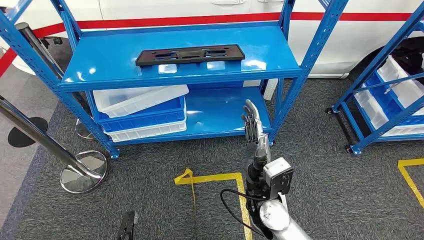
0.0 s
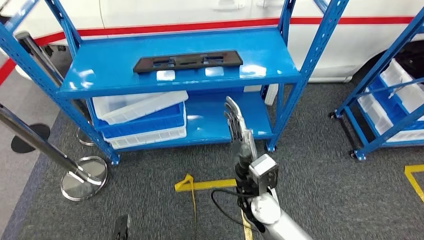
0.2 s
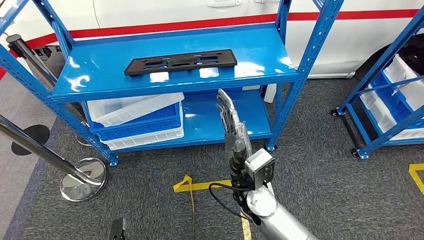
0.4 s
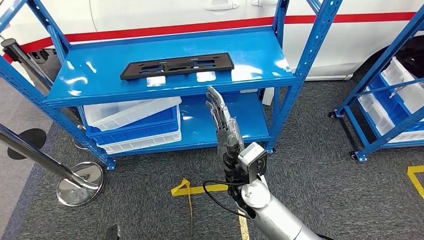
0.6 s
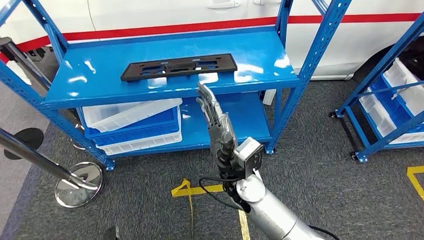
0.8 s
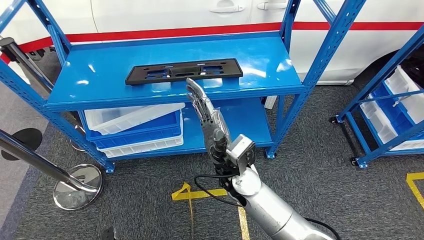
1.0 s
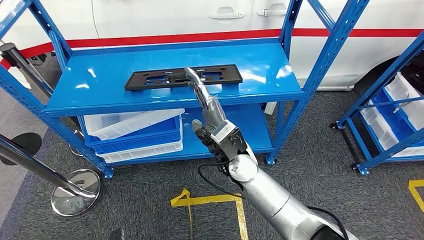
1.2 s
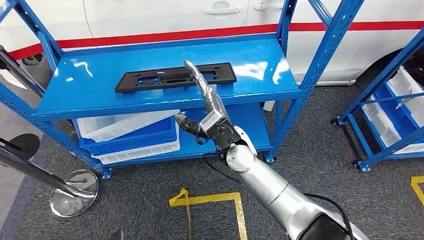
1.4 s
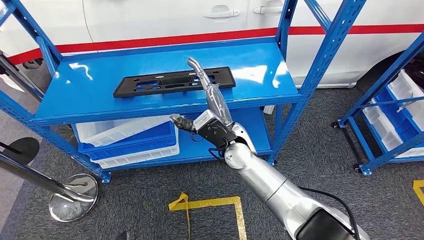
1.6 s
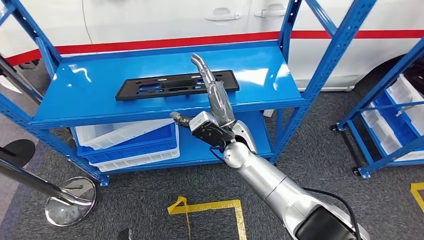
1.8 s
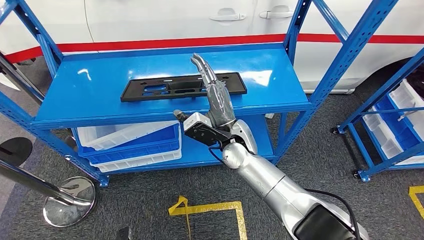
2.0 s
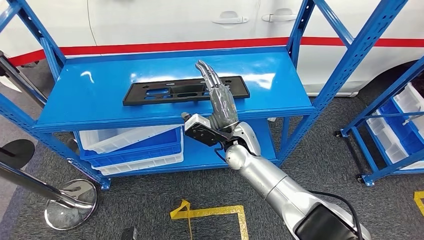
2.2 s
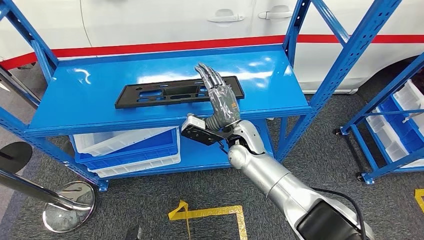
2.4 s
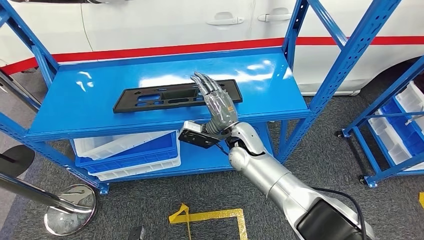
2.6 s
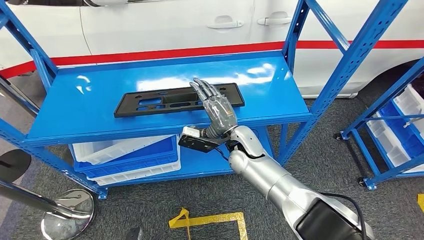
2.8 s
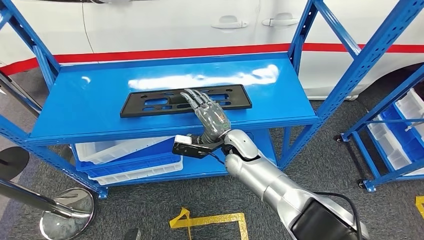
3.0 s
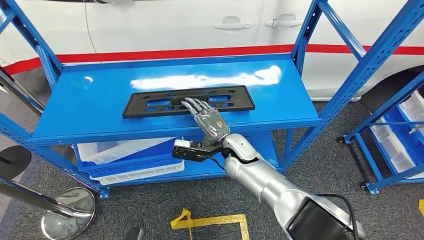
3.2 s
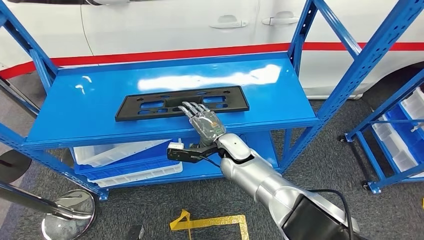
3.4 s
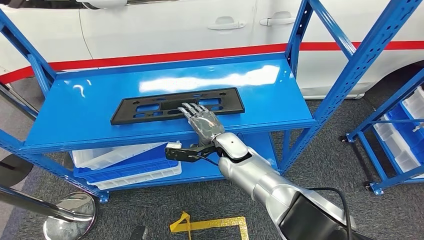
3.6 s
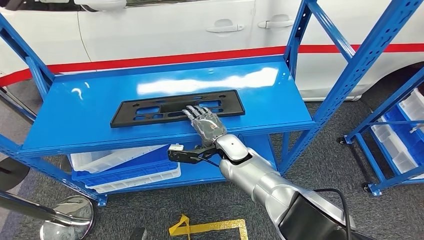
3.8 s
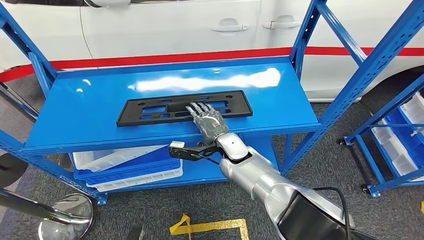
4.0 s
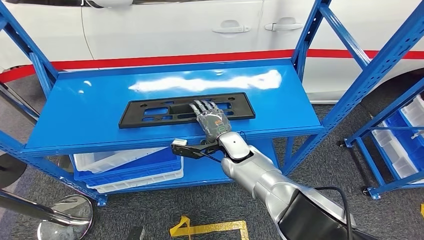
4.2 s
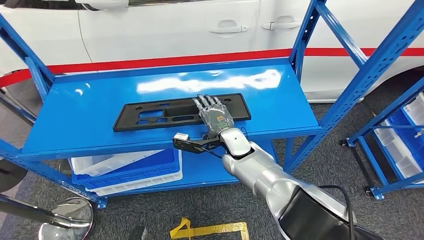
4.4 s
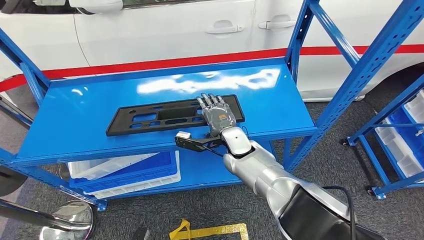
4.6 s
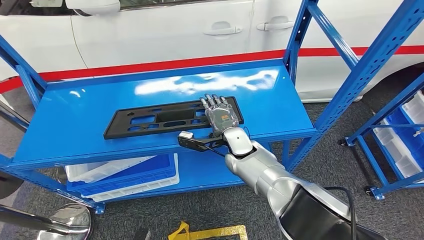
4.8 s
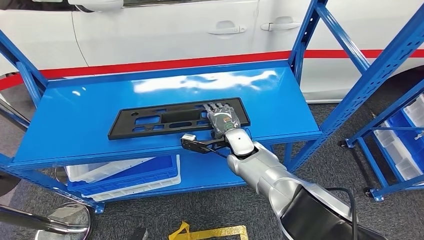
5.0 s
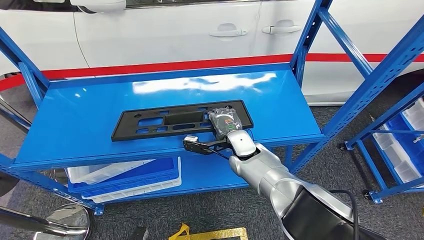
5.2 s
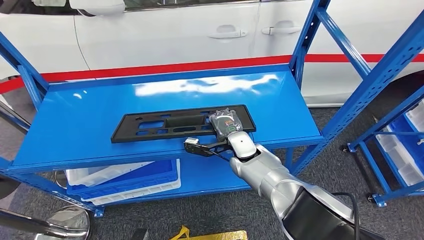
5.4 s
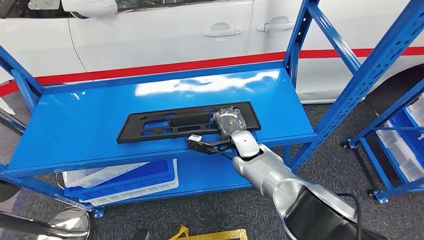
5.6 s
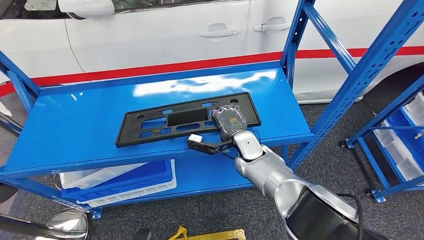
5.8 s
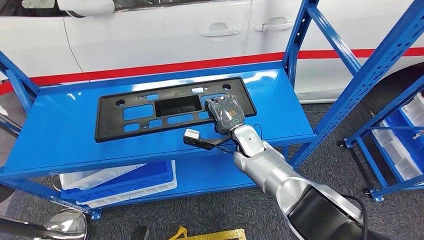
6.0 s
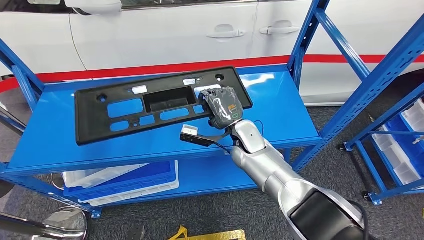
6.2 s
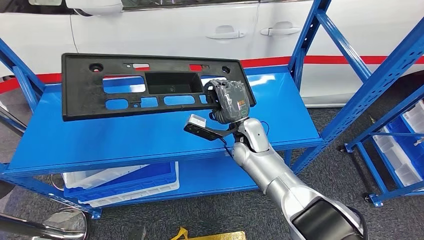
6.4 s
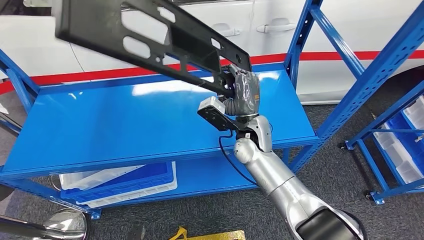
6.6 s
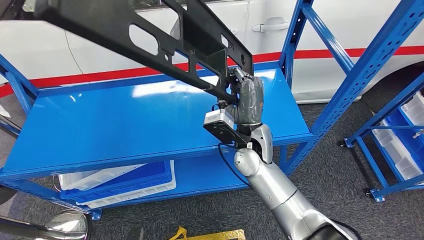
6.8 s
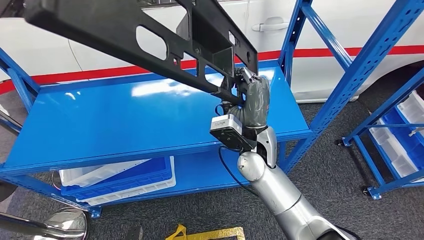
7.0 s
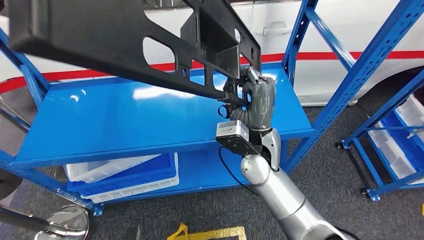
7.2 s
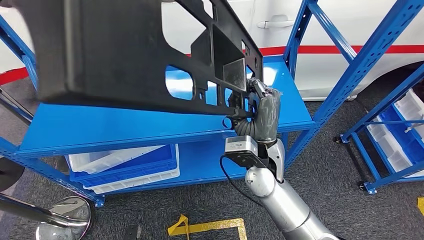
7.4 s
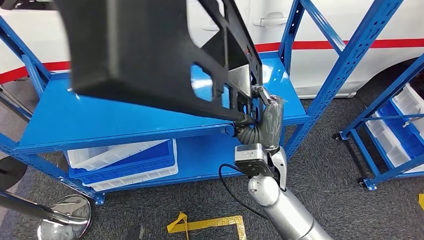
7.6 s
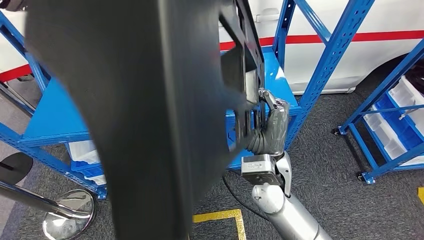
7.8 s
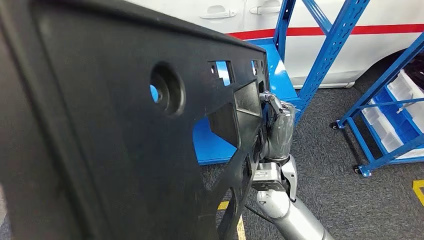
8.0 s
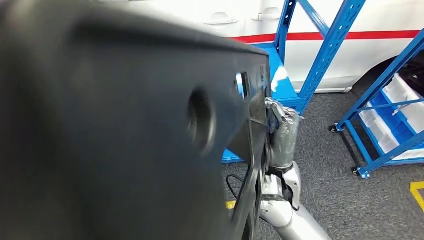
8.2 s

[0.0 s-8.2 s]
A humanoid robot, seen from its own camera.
Step, 0.0 to 7.6 s: Pick up the large parts from the shelf.
Step, 7.8 to 8.2 s: Move the large parts to the workbench.

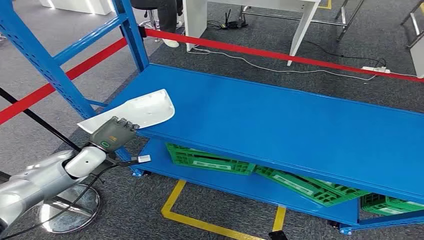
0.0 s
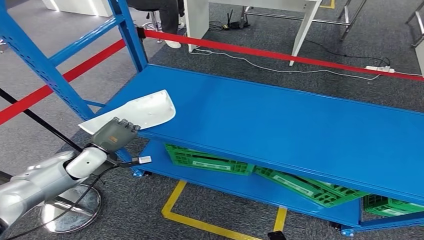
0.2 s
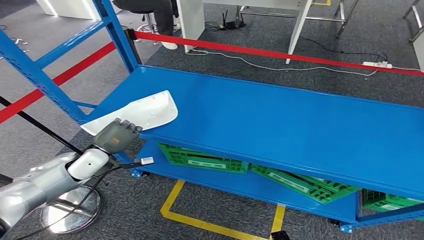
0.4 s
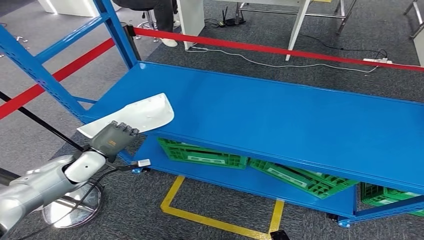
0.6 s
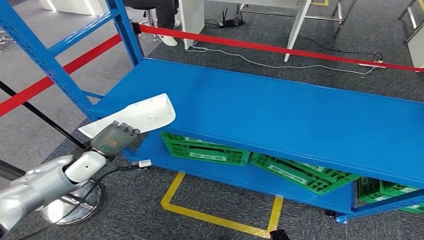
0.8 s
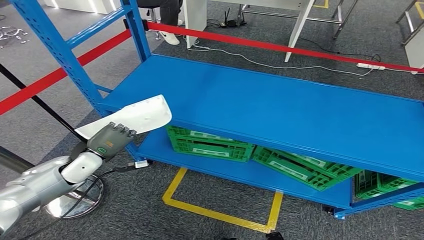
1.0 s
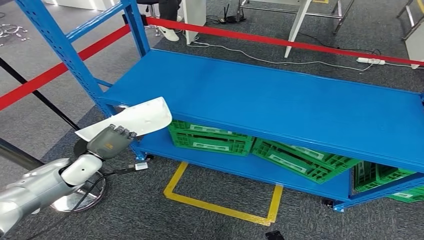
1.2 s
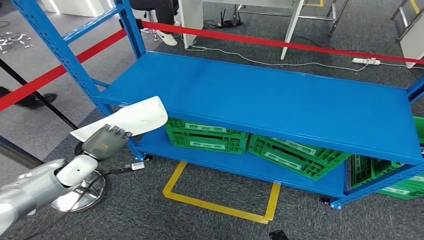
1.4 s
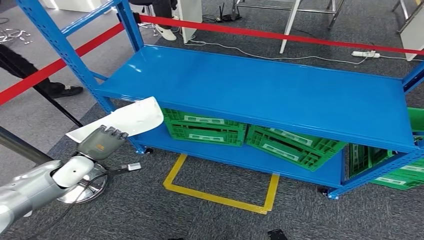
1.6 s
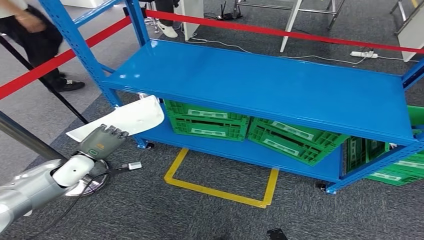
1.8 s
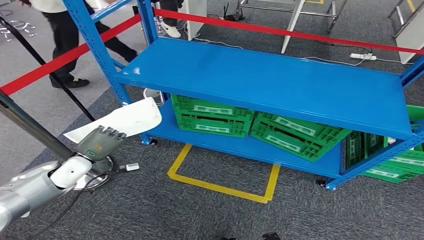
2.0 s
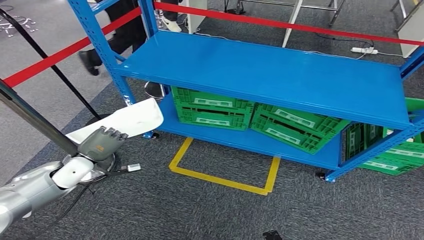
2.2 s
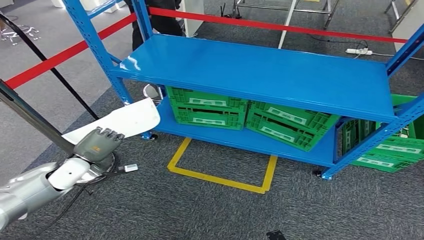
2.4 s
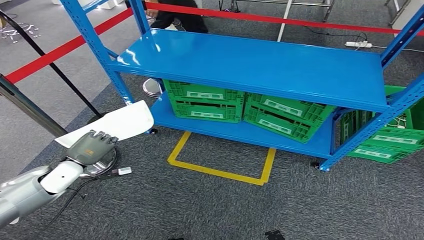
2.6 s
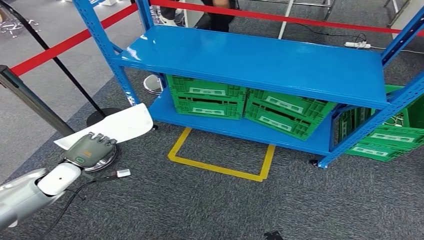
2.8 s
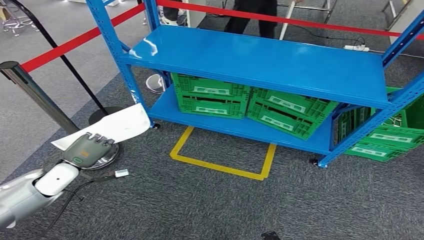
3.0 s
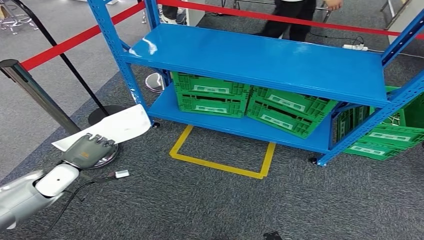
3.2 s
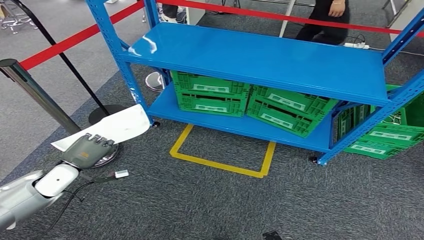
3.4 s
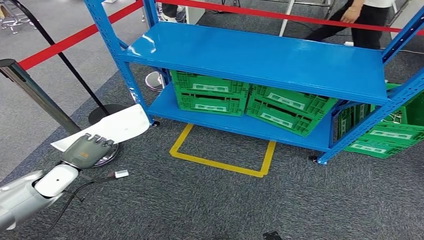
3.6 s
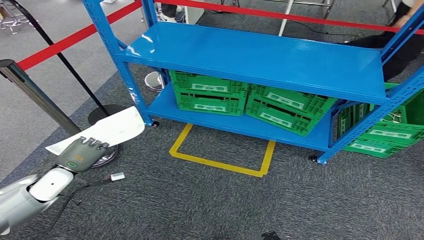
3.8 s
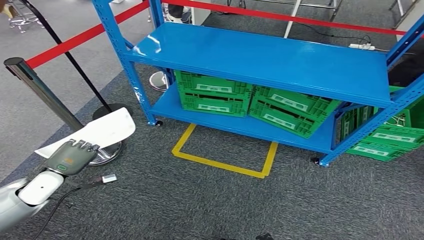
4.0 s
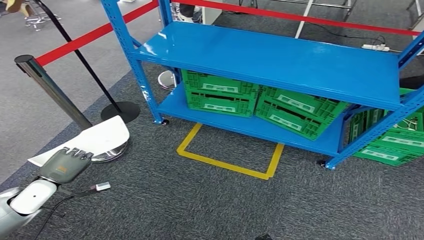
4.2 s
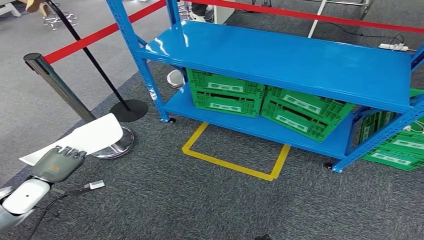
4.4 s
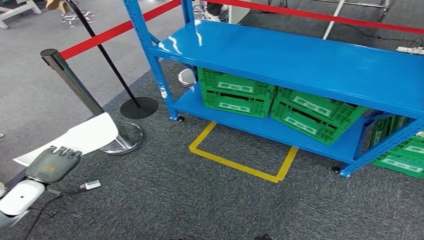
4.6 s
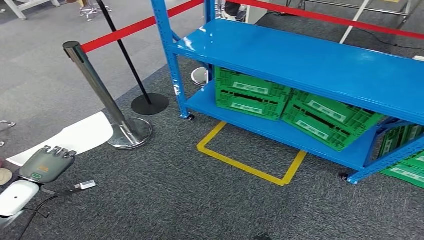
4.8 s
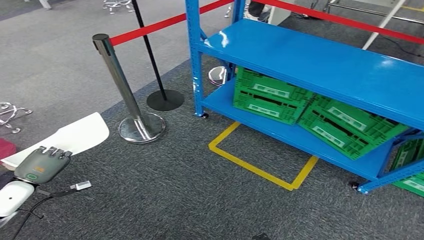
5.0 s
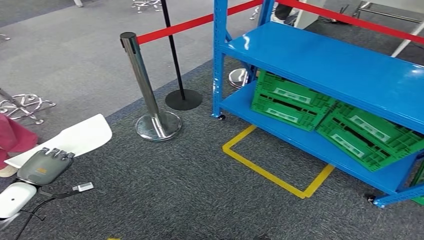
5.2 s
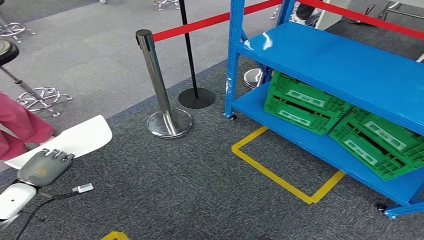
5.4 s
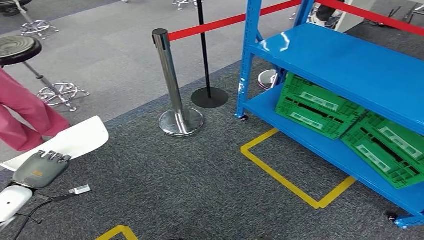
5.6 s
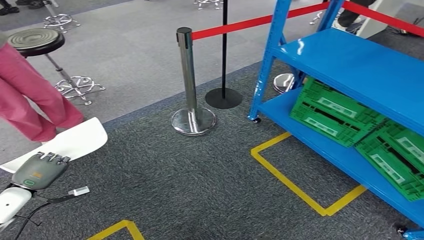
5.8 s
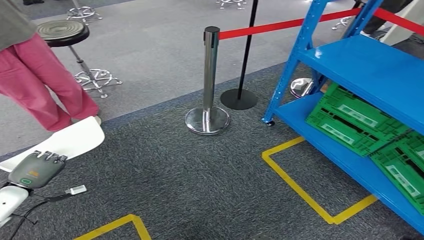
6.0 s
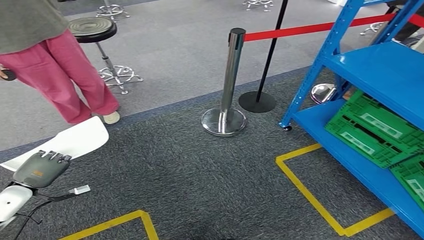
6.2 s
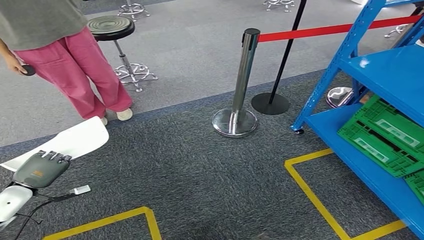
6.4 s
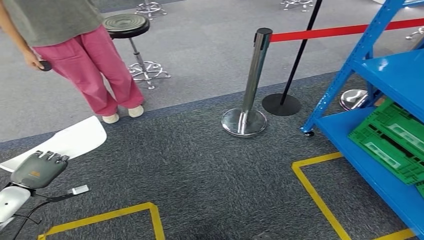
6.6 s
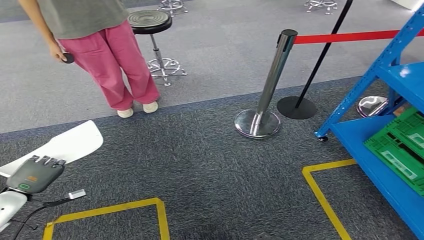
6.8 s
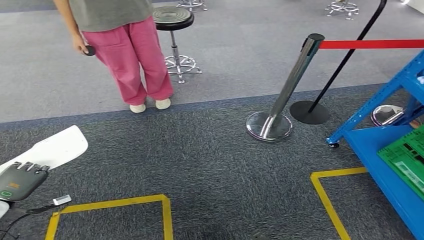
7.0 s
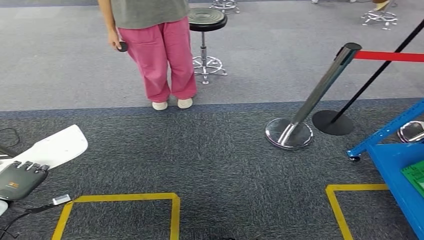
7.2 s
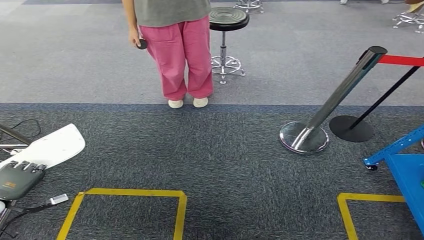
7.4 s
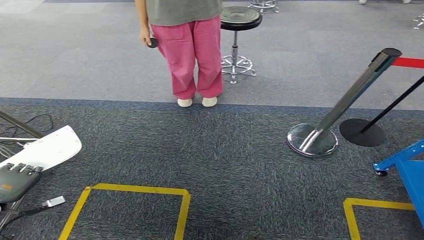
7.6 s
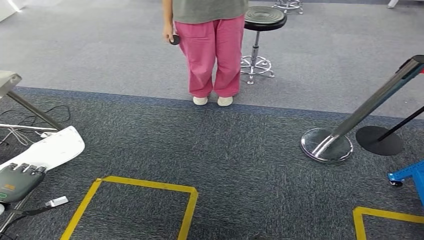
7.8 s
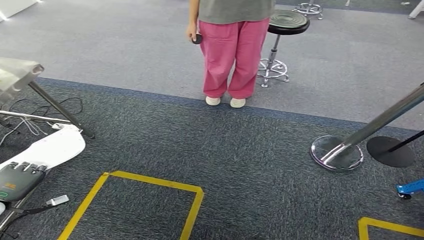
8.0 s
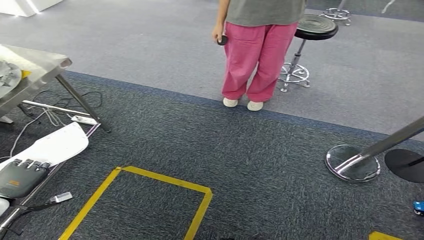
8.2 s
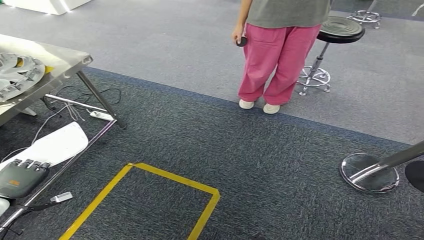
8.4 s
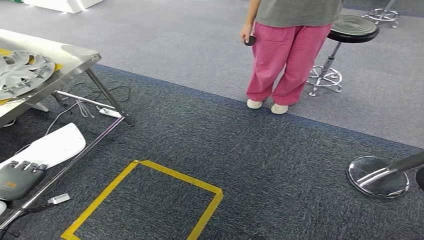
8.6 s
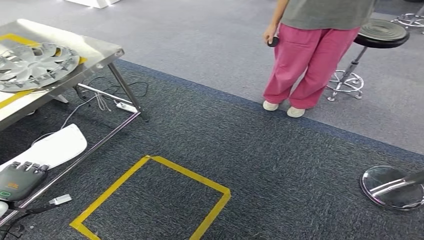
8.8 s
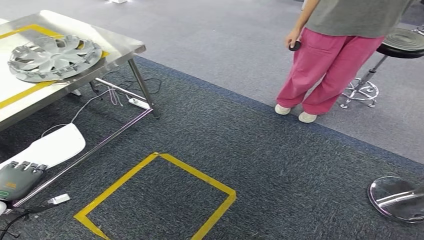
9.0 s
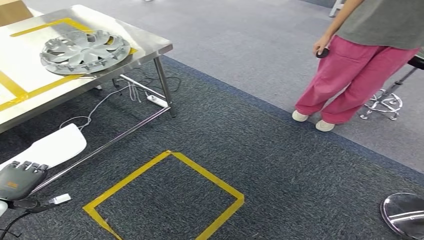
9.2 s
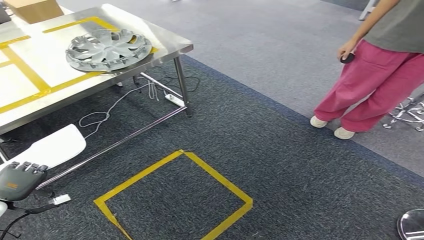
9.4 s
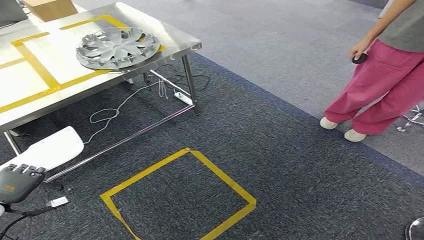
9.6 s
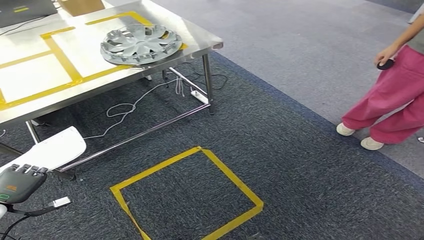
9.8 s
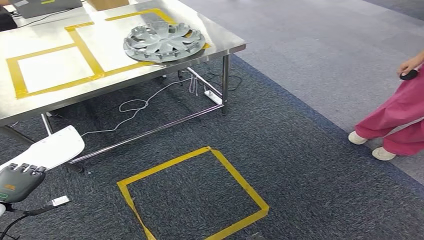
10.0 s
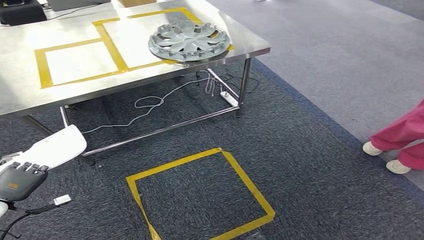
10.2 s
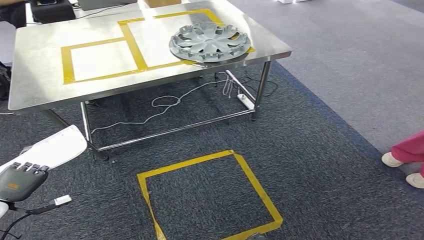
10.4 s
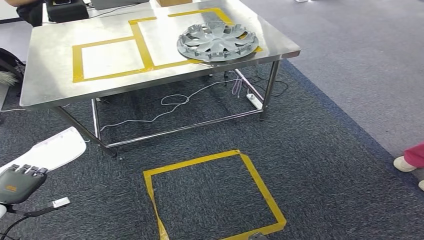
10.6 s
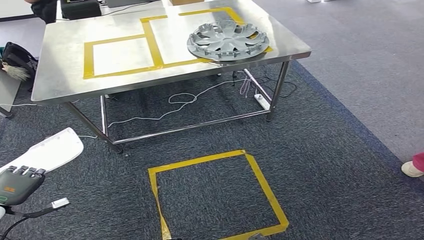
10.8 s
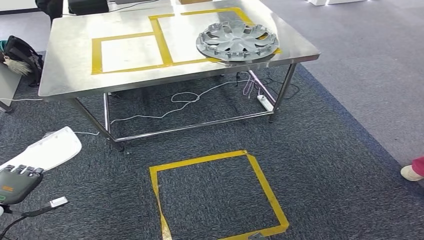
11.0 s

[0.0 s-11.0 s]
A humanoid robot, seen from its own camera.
Step, 0.0 to 3.2 s: Pick up the small parts from the shelf.
